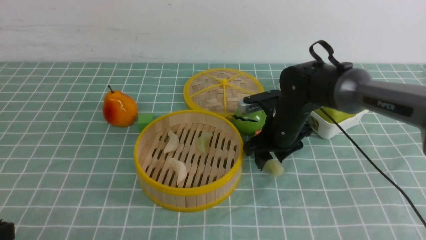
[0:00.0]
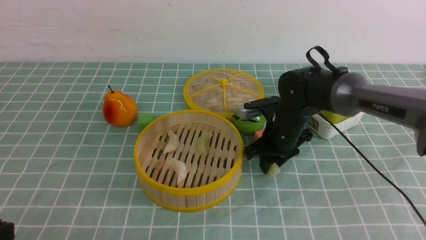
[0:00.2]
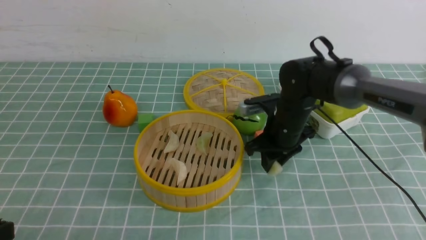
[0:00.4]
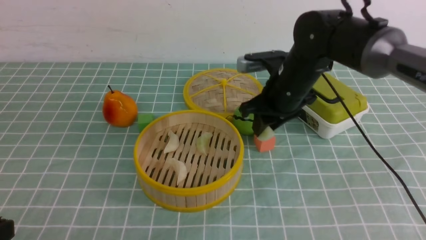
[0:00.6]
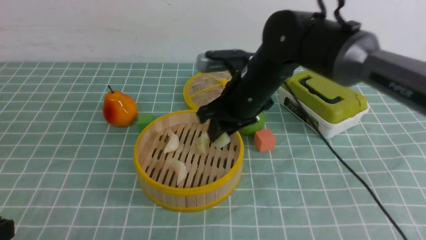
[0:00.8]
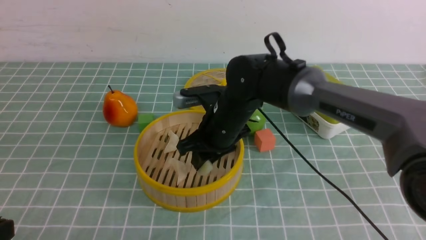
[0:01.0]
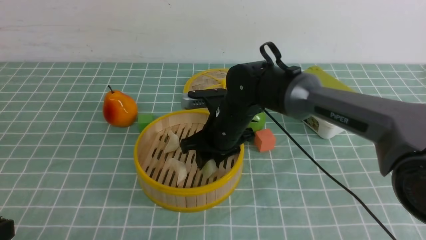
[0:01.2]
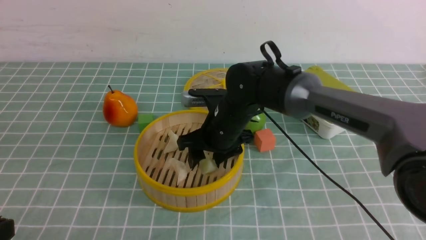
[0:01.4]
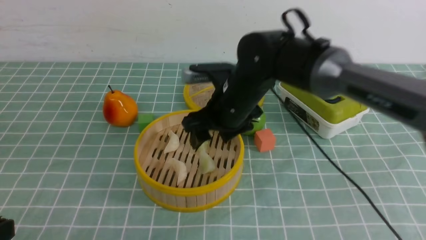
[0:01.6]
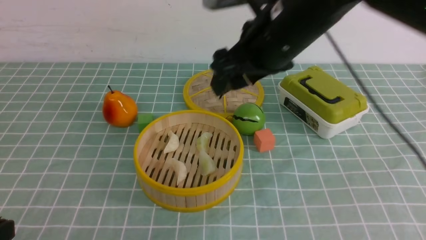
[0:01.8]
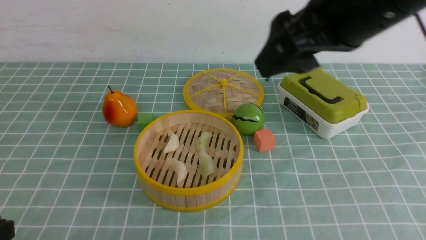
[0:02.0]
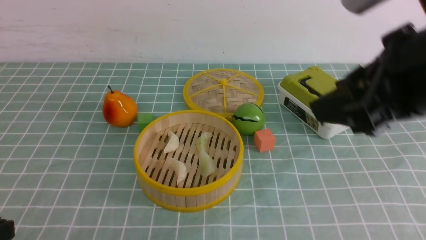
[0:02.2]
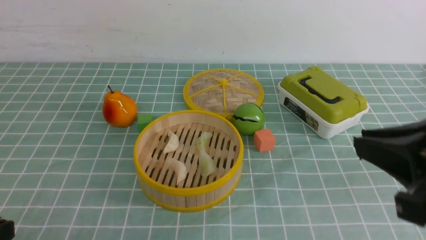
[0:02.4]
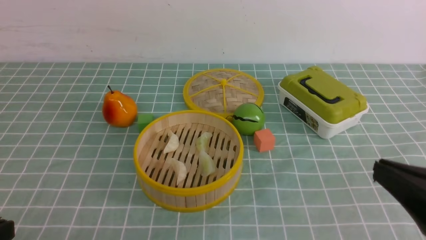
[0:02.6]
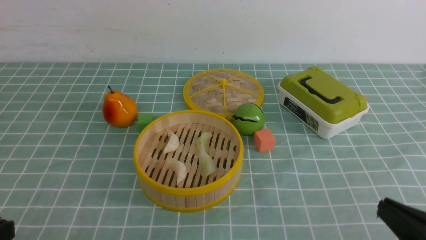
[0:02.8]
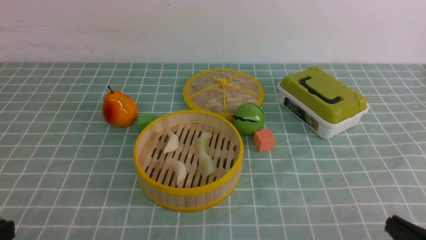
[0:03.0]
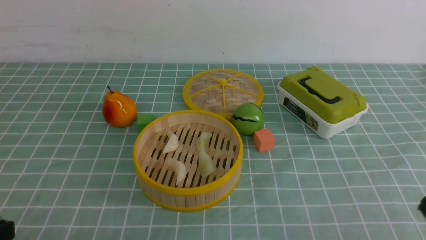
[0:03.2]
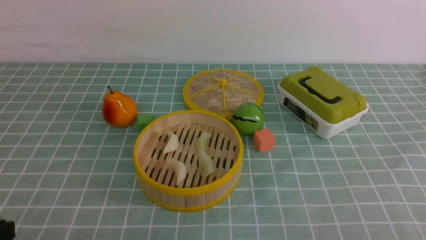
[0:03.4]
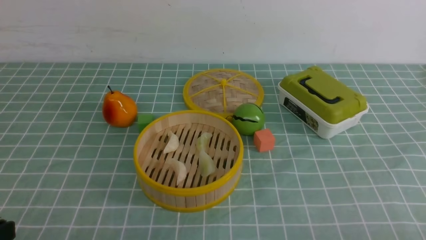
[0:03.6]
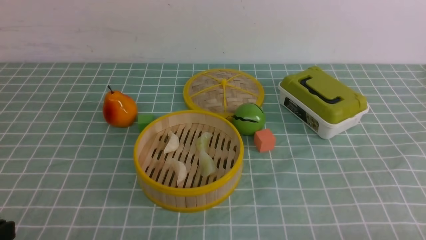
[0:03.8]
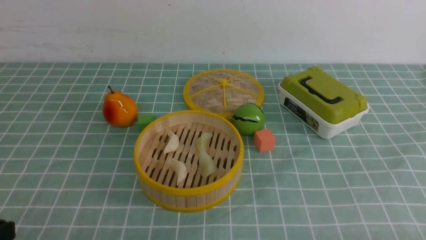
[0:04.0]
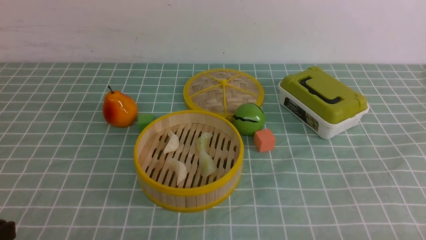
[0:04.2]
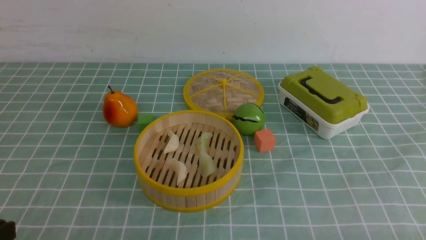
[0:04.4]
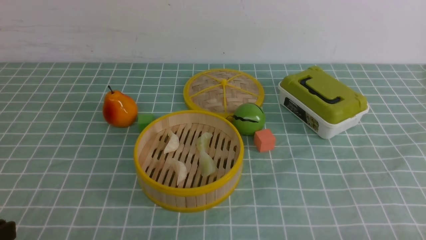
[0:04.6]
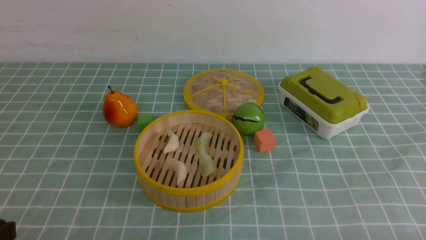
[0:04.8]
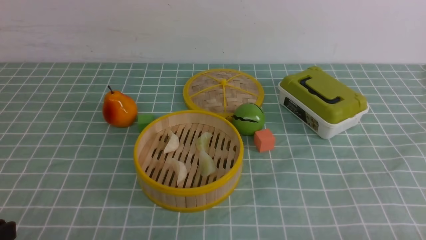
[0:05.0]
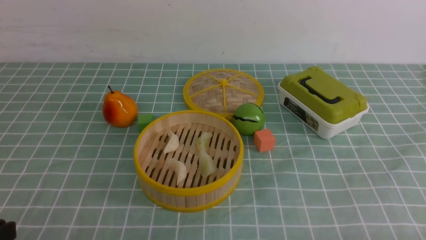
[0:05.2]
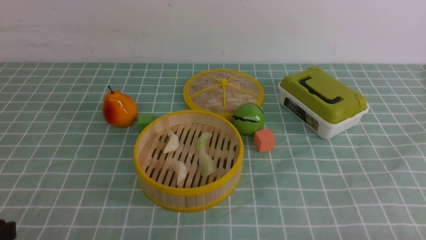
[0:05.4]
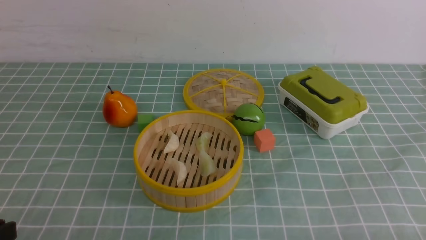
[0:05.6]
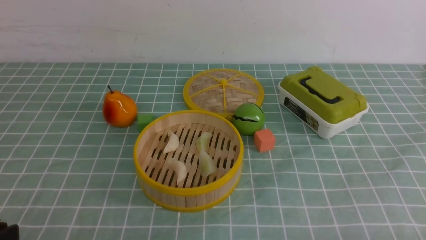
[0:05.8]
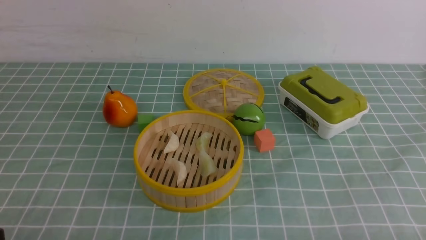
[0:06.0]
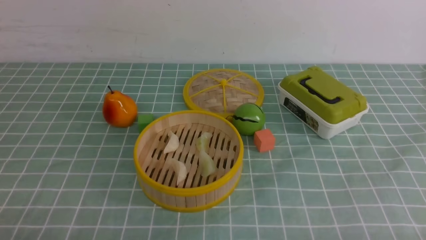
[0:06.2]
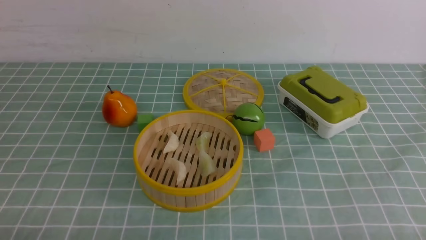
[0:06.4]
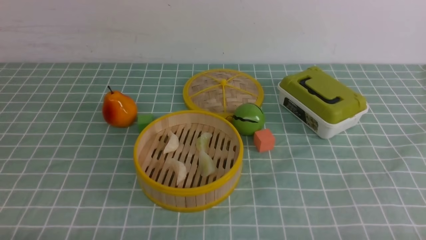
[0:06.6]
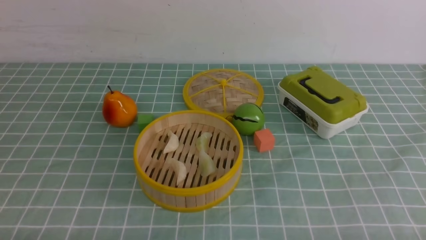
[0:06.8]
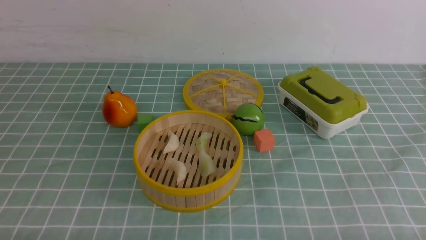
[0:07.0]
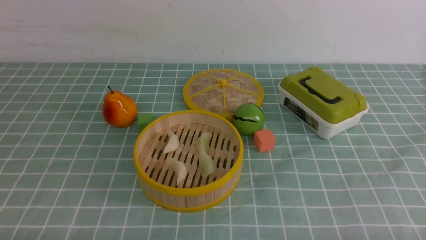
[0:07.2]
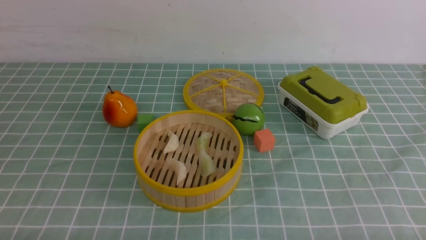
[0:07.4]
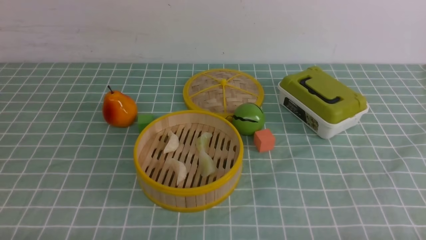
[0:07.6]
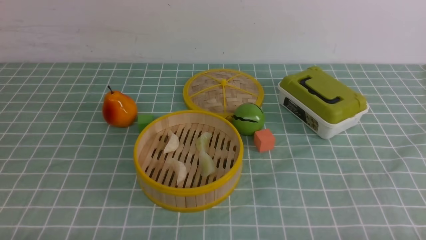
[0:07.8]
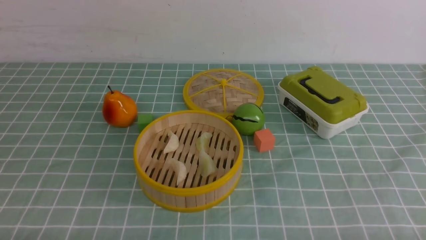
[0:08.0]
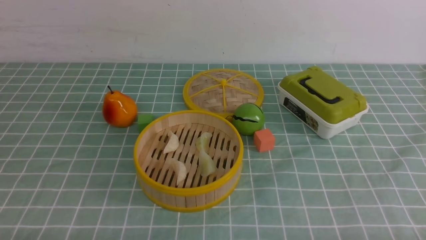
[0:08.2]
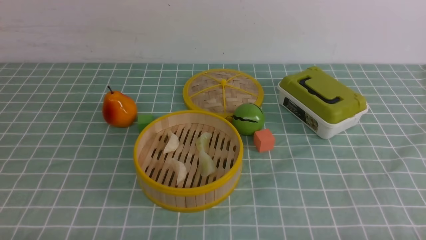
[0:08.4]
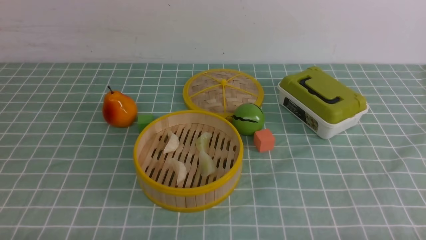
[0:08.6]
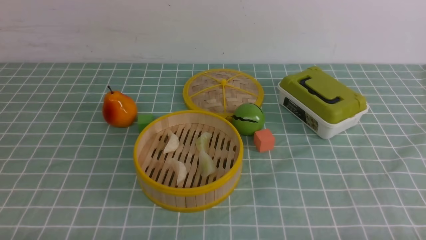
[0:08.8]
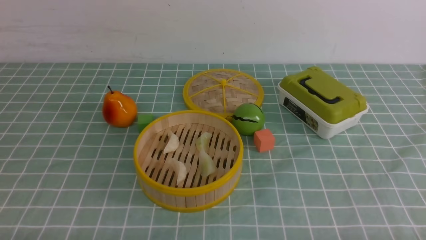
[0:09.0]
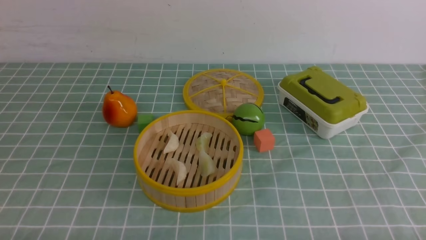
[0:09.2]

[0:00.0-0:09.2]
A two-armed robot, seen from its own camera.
Task of the whole recording: put the dumplings into the steamer on the table with the blue tablecloth.
Step, 0:00.6 to 0:01.6: use the right arm to put the dumpling into the steamer.
0:00.0 to 0:01.6: The right gripper moves up and down over about 15 cm, changing direction 2 times.
0:01.6 to 0:03.0: The right gripper is displaced backward and to the right by some 35 cm, and closes up.
0:03.0 to 0:04.6: The right gripper changes place by roughly 5 cm.
0:07.6 to 0:09.2: Neither gripper changes place.
